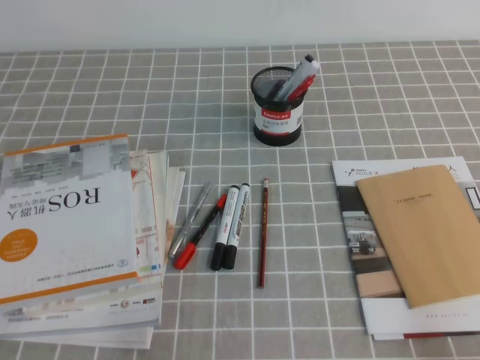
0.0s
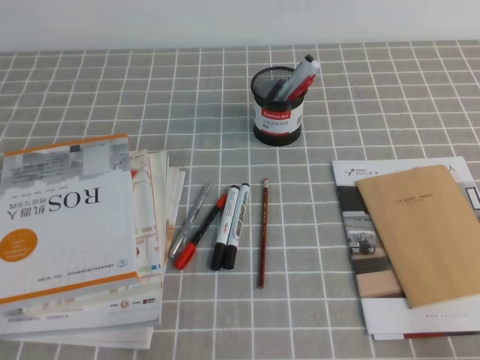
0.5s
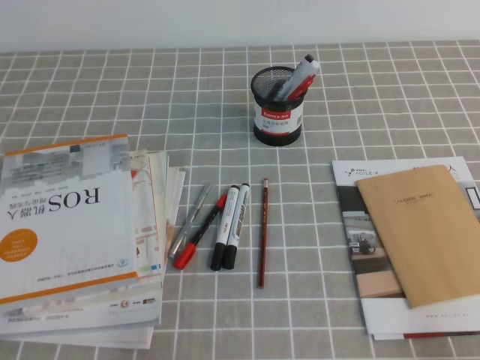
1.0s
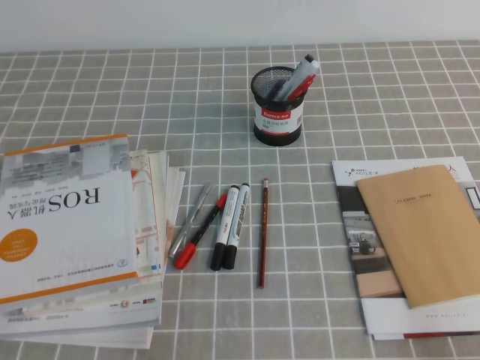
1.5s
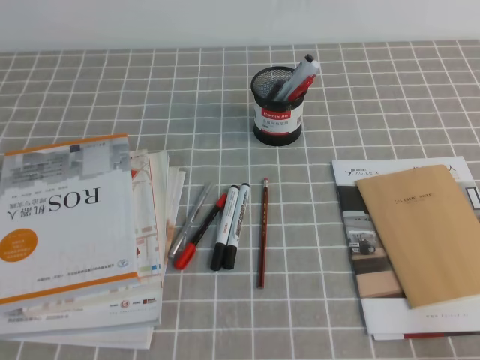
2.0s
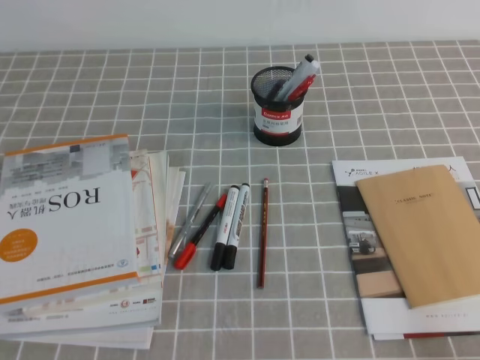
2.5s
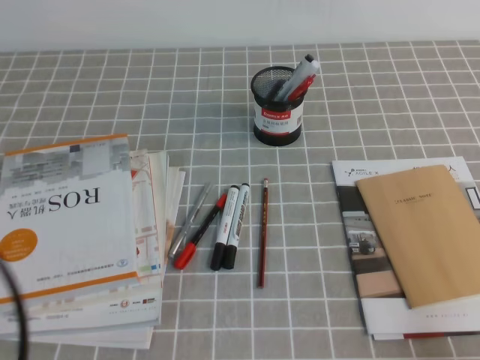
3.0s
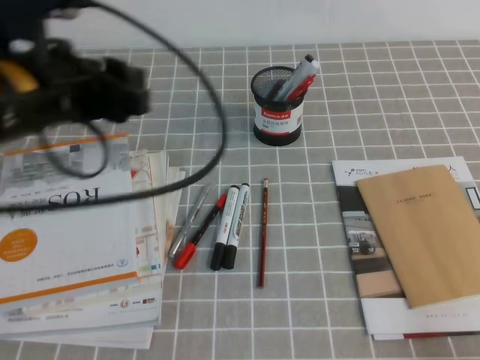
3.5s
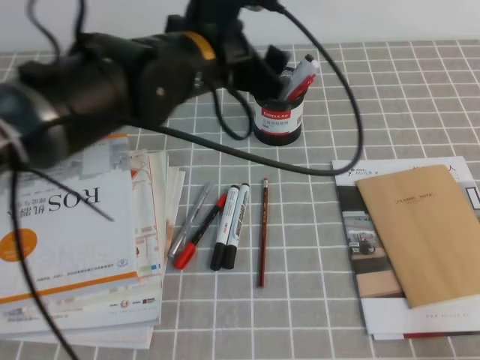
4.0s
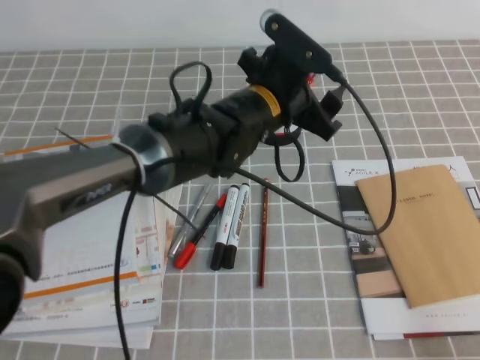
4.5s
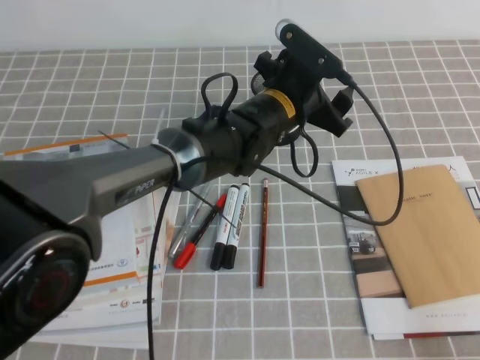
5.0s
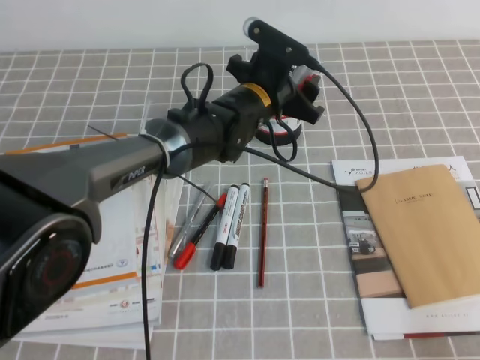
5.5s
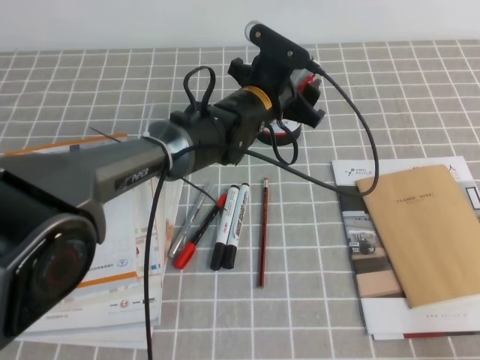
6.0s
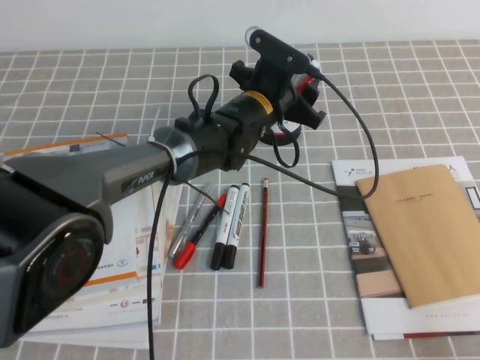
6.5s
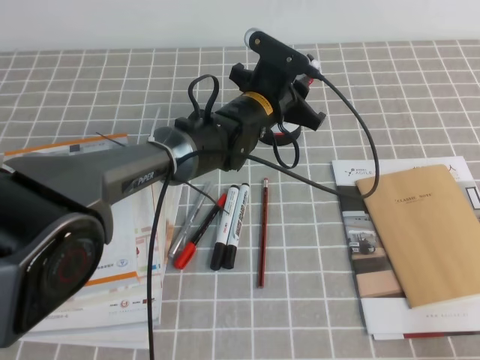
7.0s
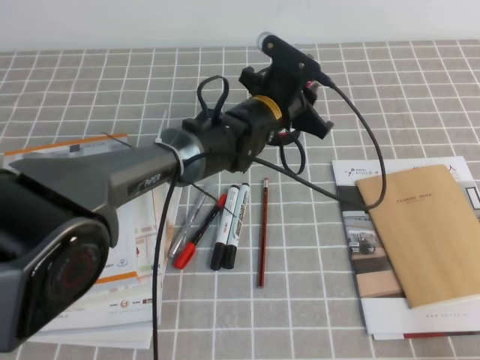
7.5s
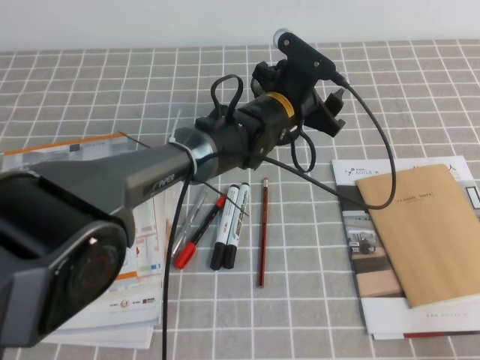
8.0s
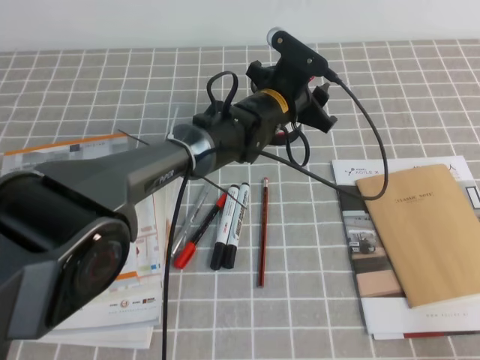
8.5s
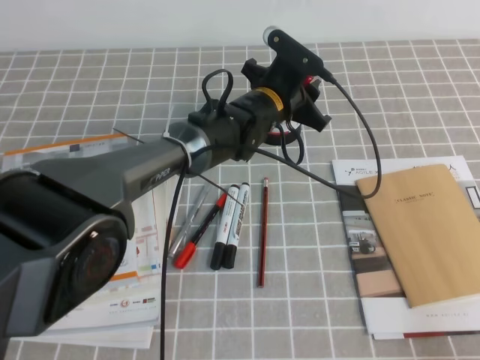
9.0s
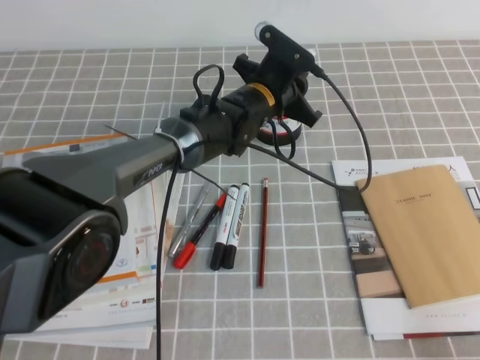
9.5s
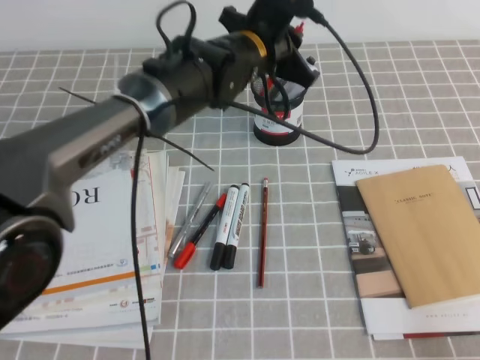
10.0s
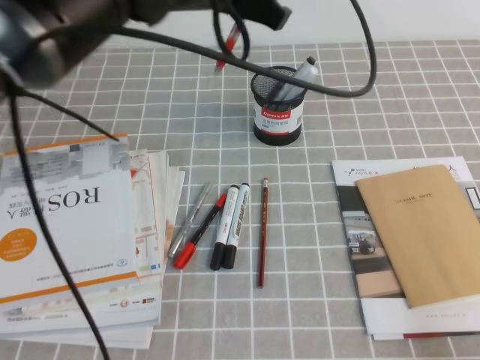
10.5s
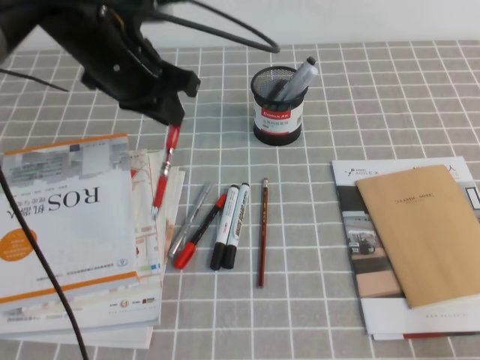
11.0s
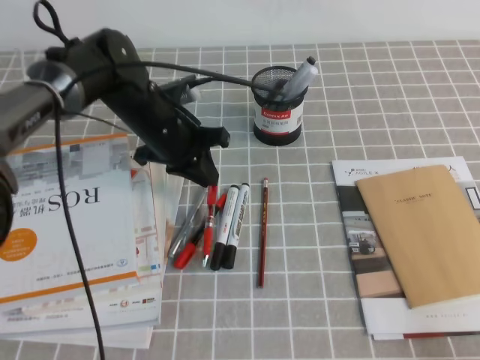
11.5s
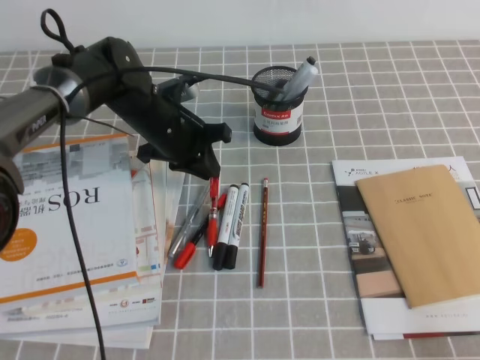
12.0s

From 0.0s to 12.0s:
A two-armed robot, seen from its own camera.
From 2.0s to 4.0s: The left gripper moves forward and to the right, some 35 cm, and opens up.
From 4.0s to 6.0s: The left gripper heads downward, forward and to the right, covering some 15 cm.
From 6.0s to 8.0s: The left gripper closes and opens again.
From 8.0s to 10.0s: The left gripper moves upward, approximately 10 cm, and closes up.
From 10.0s to 12.0s: The left gripper moves to the left and downward, about 15 cm.

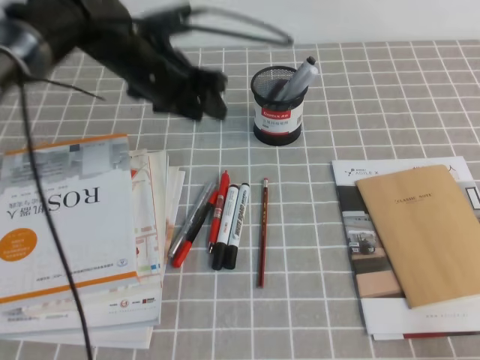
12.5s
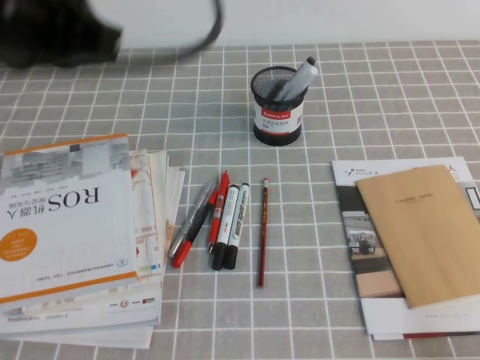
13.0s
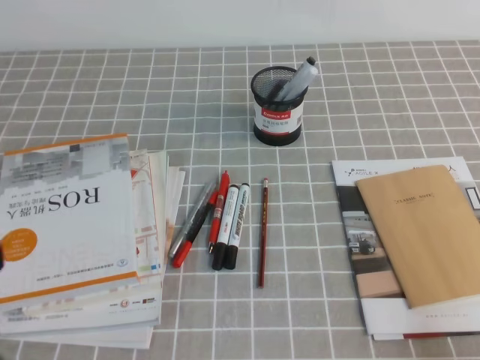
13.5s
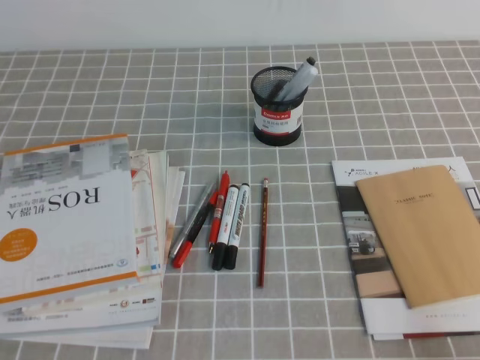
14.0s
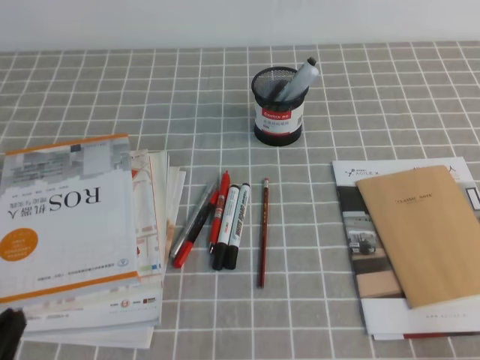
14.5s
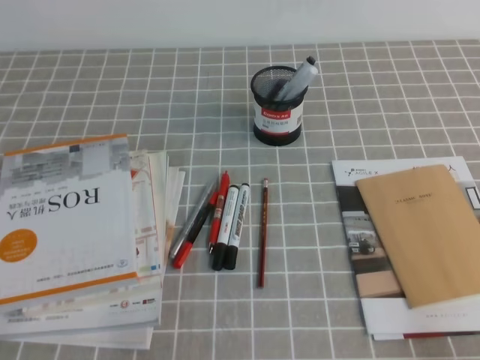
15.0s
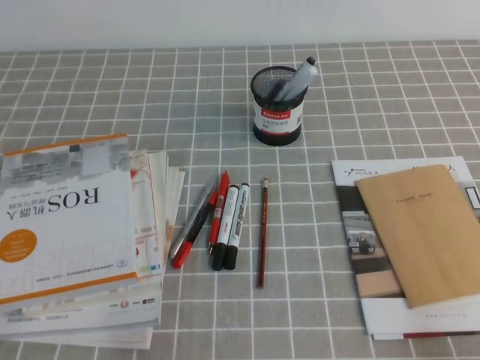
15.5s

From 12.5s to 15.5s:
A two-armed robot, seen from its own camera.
Step, from 12.5s to 15.5s: Pick up the pen from the pen holder.
From 12.5s to 14.0s: The left gripper travels backward and to the left by some 40 cm, and closes.

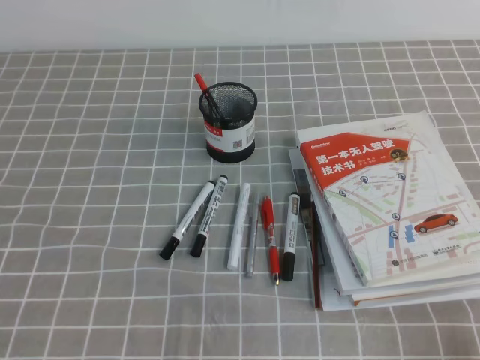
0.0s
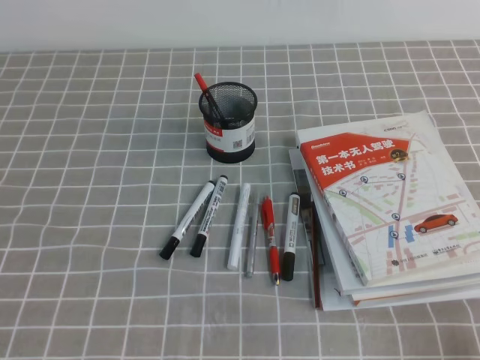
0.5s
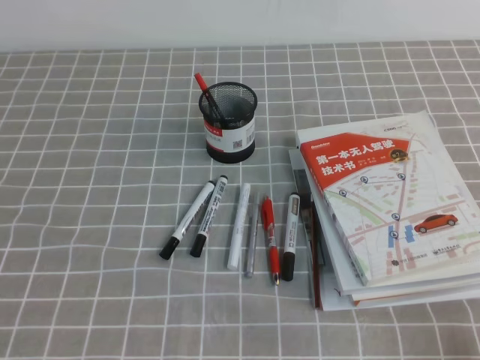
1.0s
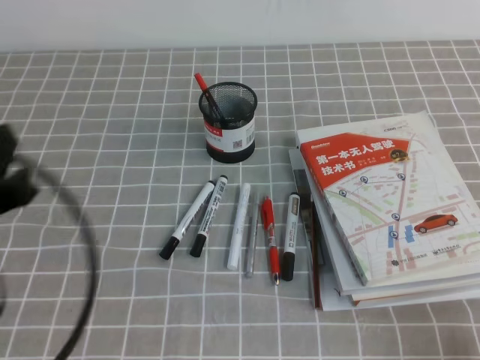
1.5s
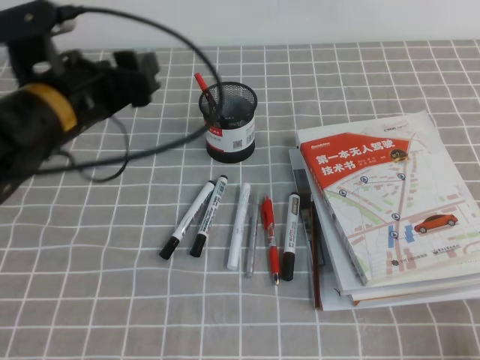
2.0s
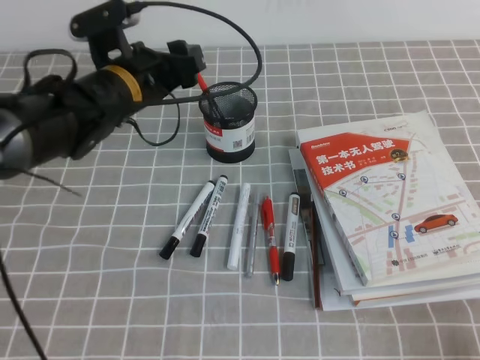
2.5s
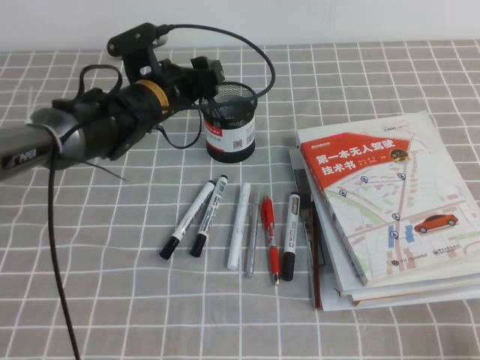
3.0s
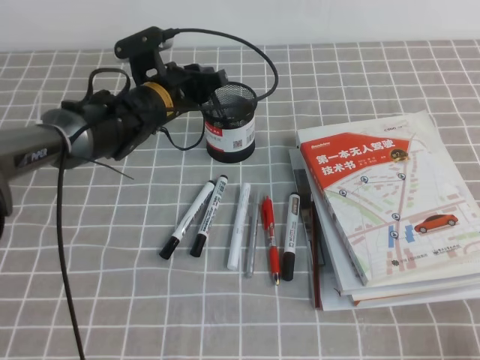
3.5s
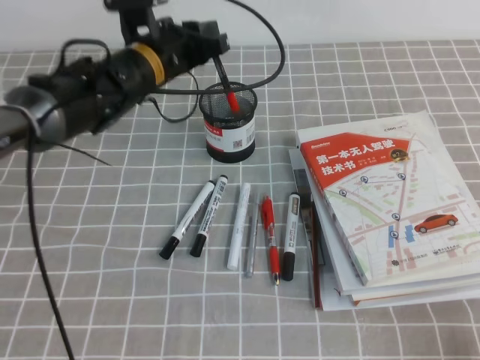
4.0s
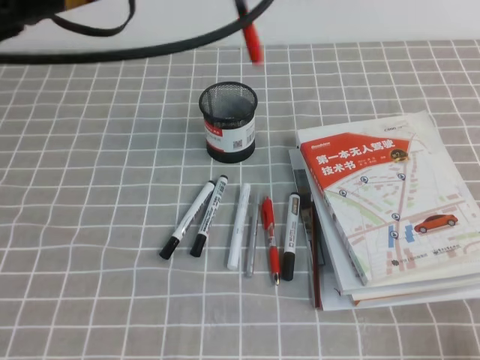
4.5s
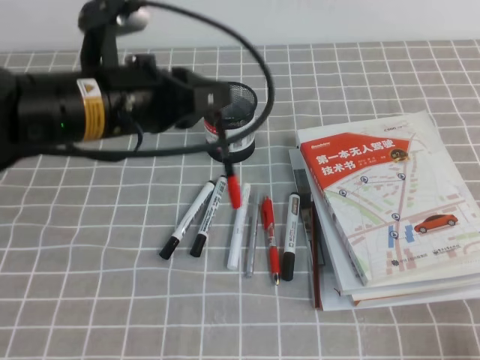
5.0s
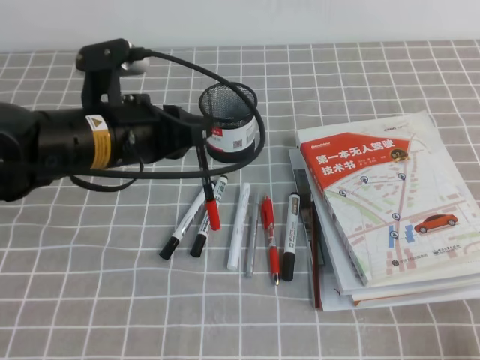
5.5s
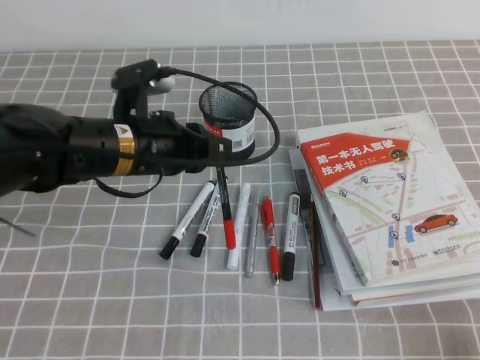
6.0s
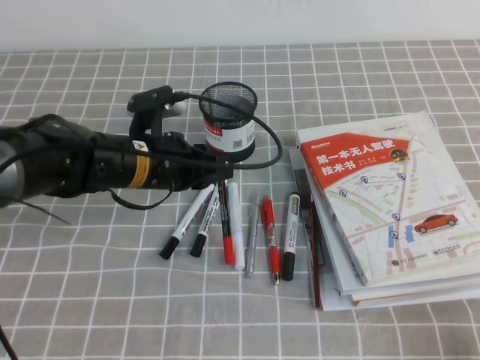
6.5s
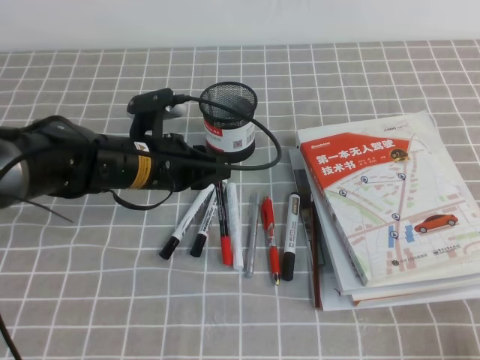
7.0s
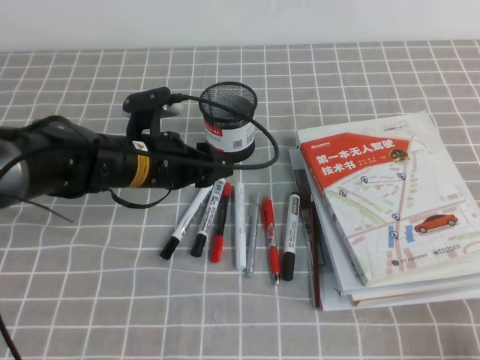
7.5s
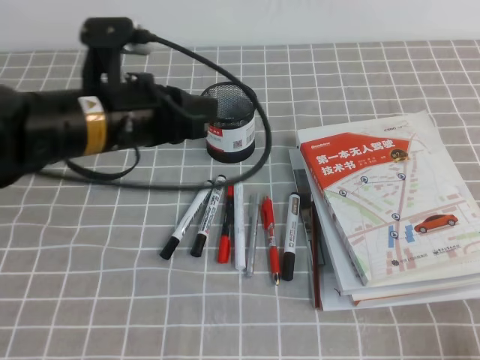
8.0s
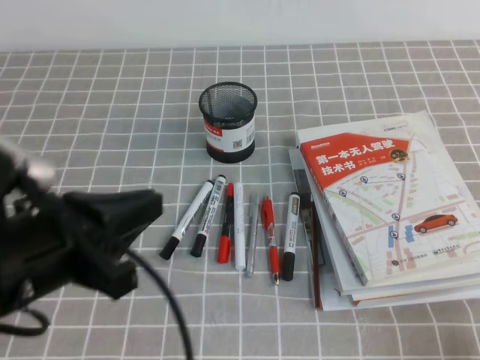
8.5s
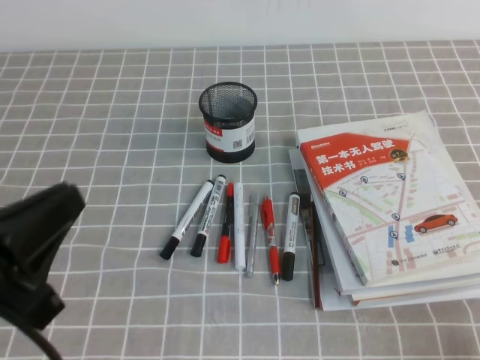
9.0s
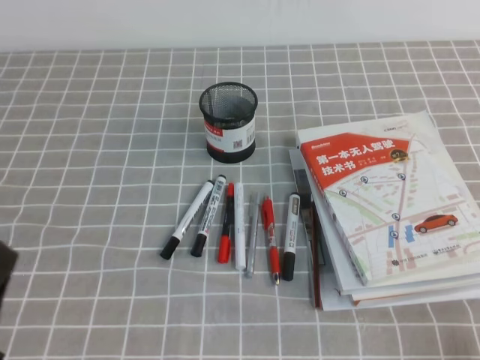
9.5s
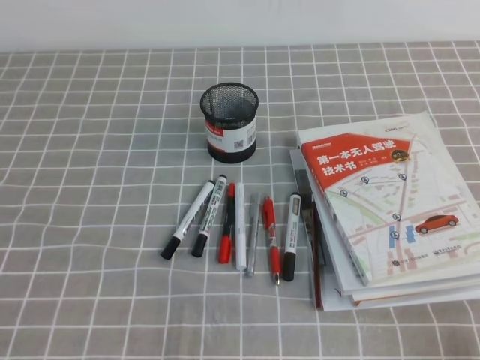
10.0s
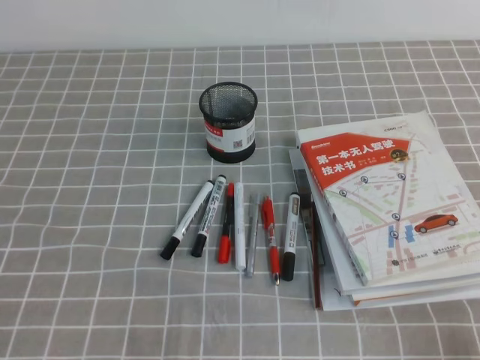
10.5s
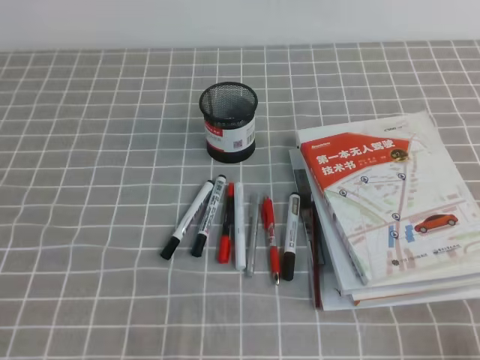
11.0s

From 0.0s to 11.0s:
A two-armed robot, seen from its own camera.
Step, from 0.0s to 11.0s: Pick up the pen from the pen holder.
From 0.0s to 2.0s: The left gripper travels forward, upward and to the right by about 30 cm, and opens its fingers.
From 2.0s to 3.5s: The left gripper moves forward, downward and to the right, about 20 cm, and closes up.
From 3.5s to 5.5s: The left gripper moves backward and upward, roughly 15 cm.
From 5.5s to 7.5s: The left gripper shifts approximately 10 cm downward, and opens its fingers.
From 7.5s to 9.0s: The left gripper is displaced backward, to the left and upward by about 30 cm, and closes its fingers.
From 9.0s to 11.0s: The left gripper goes about 15 cm downward and to the left.
